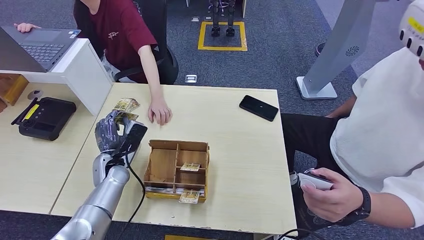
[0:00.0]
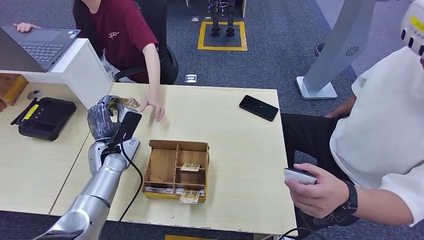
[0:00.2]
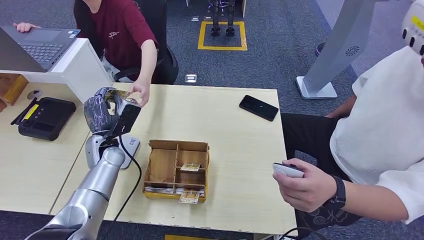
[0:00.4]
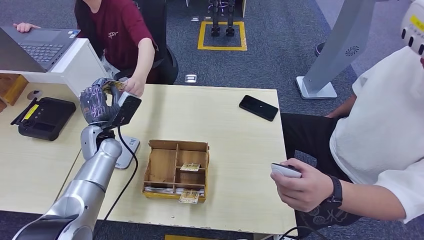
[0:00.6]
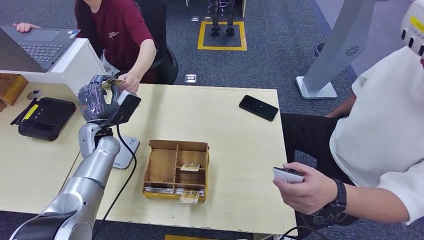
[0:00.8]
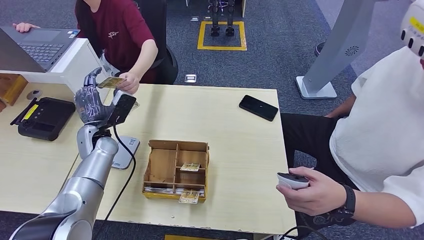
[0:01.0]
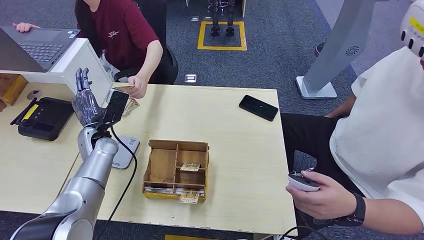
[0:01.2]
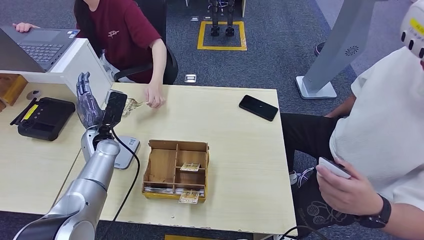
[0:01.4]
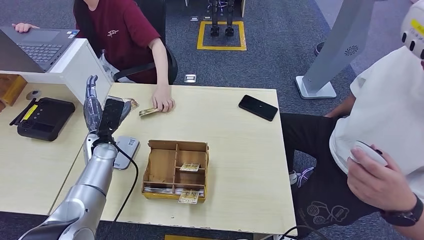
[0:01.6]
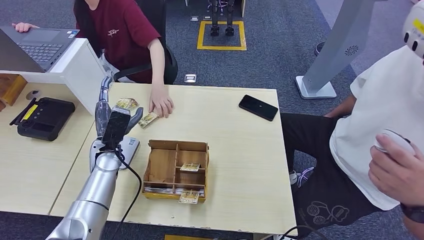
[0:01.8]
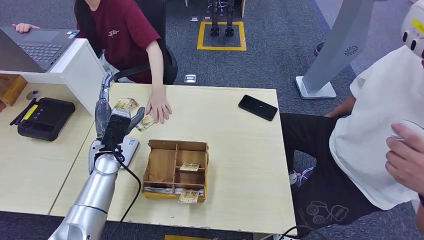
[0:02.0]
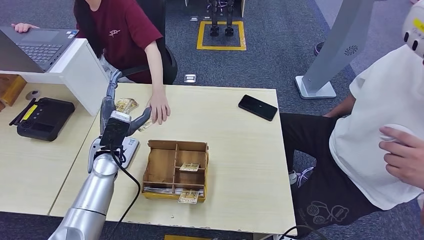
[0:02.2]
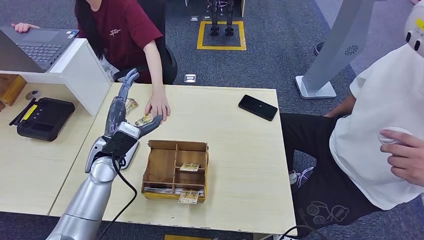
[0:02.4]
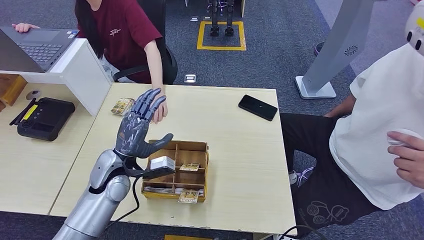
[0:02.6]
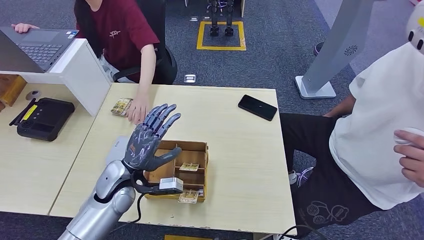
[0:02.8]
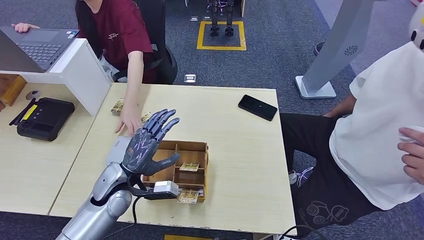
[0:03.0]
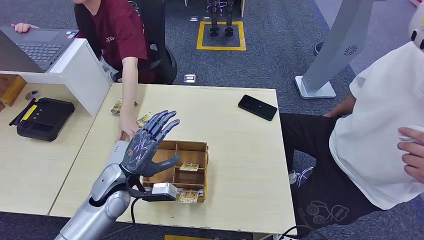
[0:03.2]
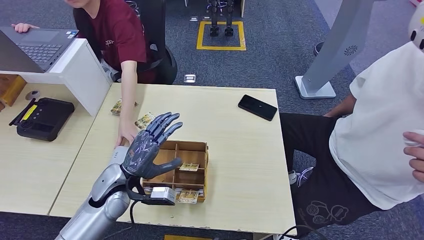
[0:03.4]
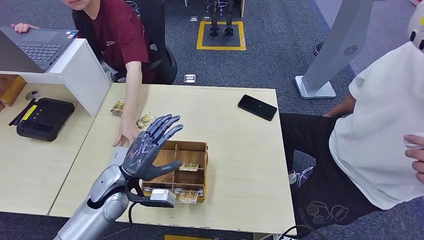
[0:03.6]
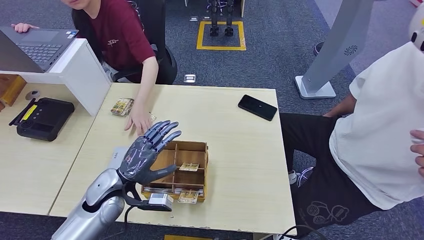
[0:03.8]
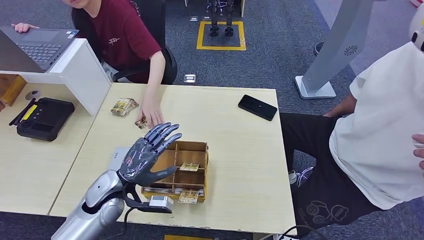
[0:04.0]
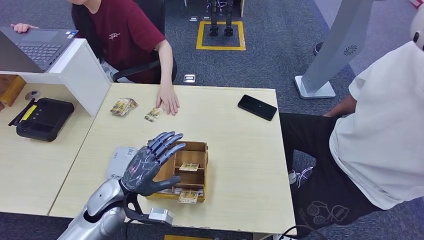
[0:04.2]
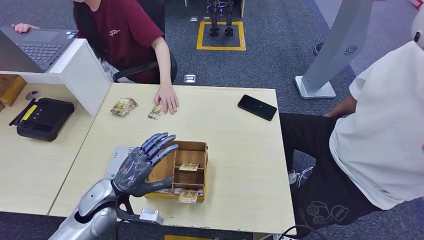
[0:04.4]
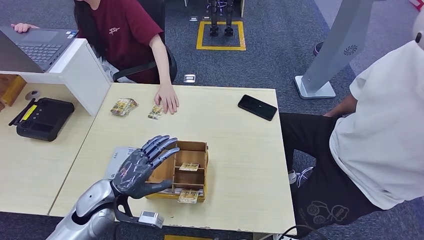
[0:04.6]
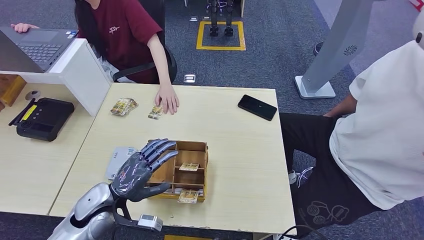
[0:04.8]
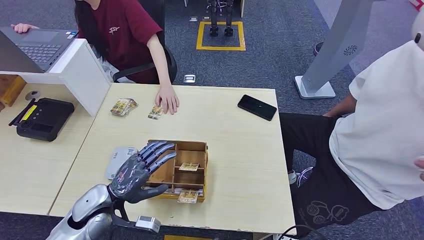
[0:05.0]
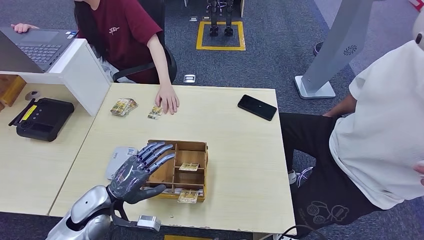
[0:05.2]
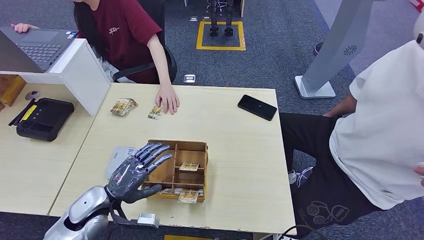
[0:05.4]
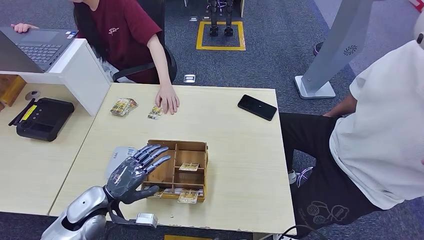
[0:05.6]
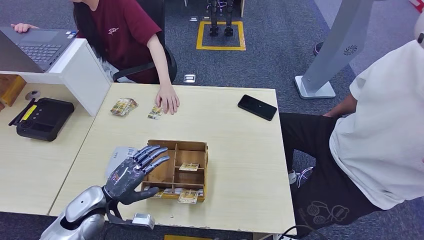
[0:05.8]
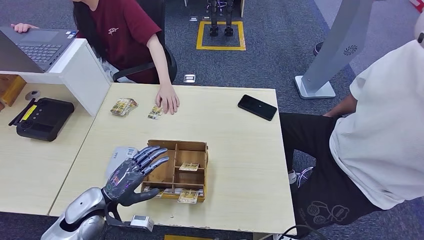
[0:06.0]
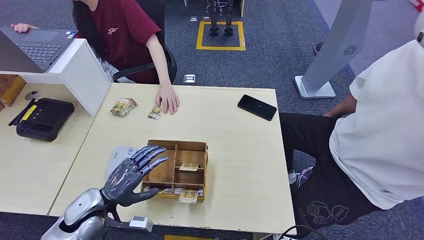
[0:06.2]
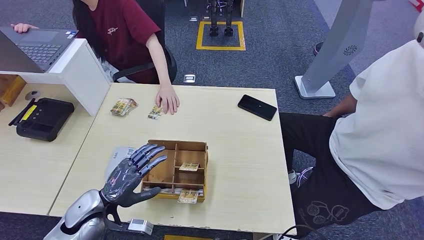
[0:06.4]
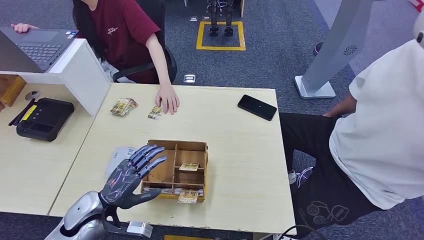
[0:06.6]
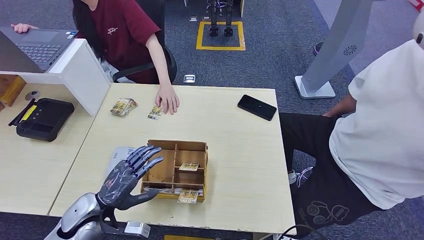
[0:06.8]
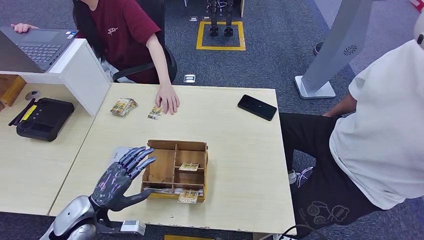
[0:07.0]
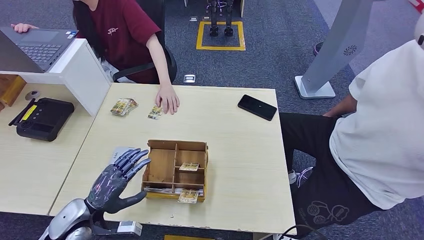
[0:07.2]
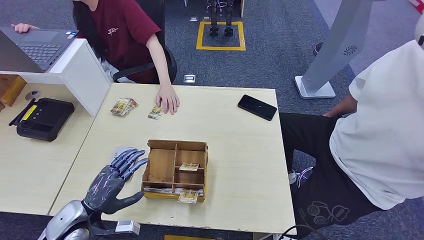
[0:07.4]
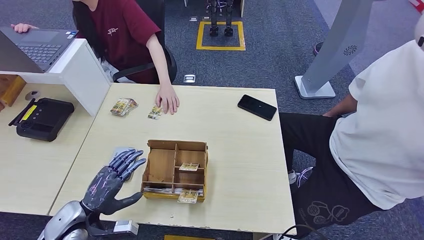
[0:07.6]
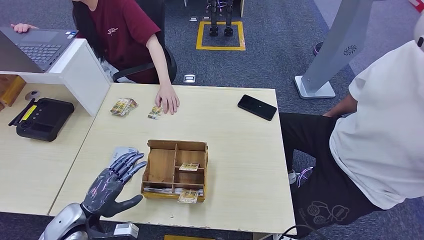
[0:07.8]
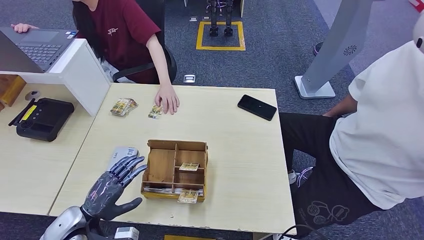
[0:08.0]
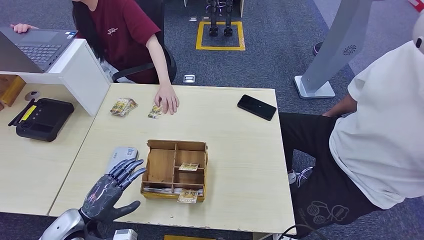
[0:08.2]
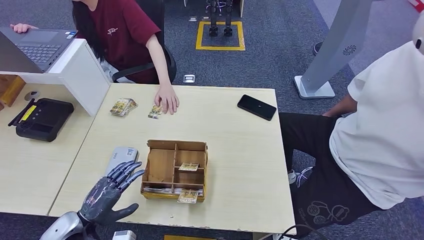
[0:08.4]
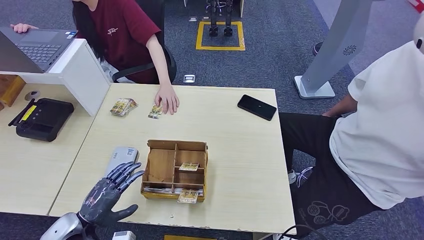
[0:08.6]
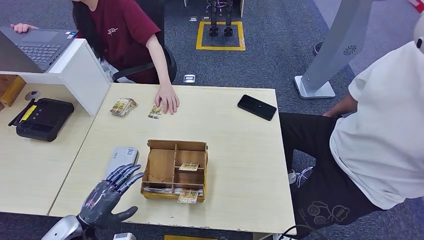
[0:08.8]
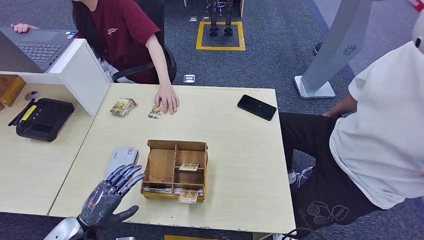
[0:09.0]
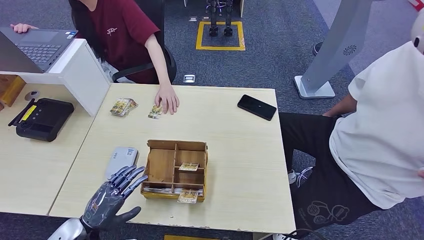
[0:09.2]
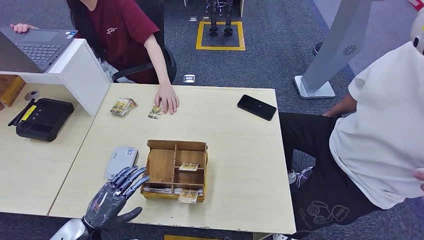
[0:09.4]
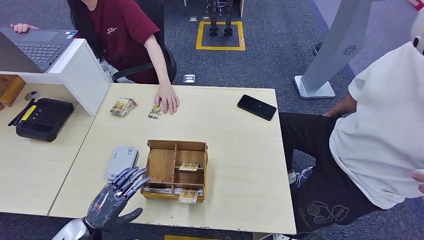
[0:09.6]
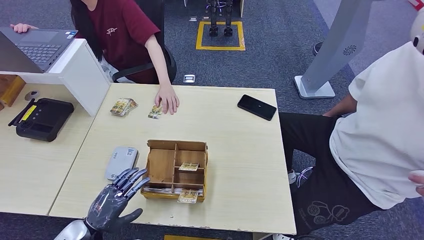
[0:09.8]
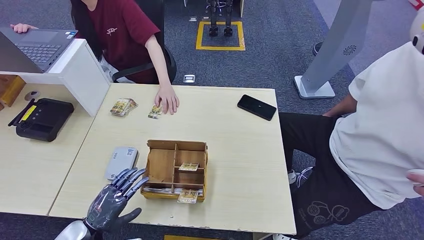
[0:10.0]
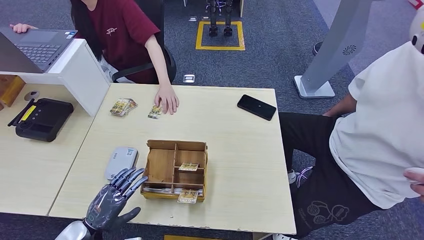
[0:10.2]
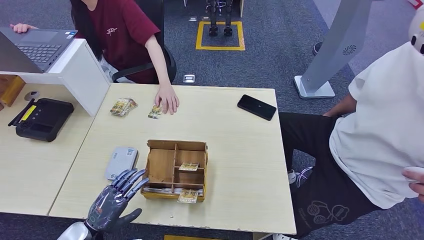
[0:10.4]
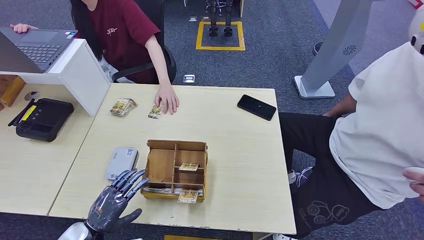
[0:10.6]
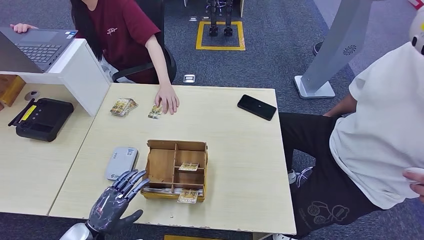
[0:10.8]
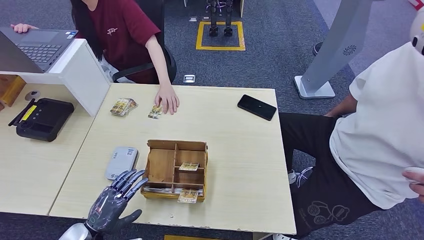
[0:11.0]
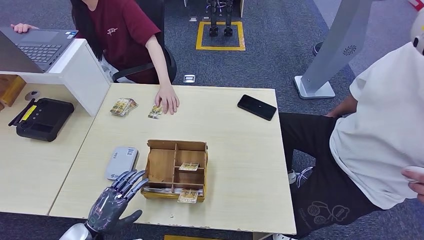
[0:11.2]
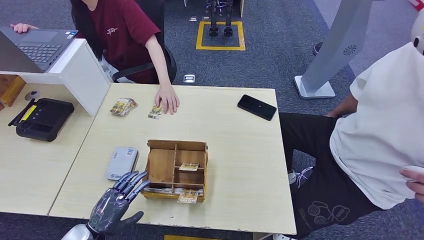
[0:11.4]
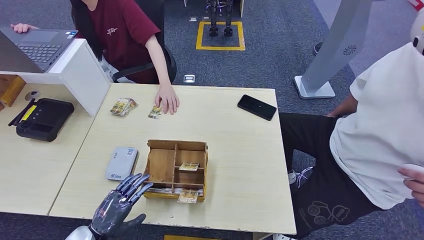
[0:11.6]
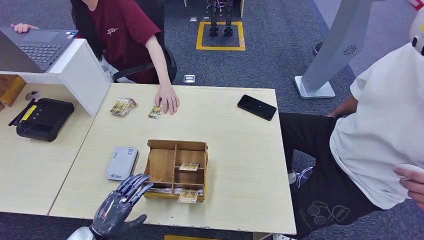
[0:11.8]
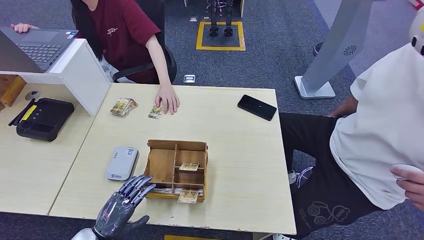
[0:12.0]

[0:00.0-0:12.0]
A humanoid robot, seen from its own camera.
0:00.0 to 0:01.6: The left hand shifts by approximately 5 cm.
0:01.6 to 0:03.0: The left hand moves backward and to the right, roughly 15 cm.
0:03.0 to 0:04.4: The hands move only a little.
0:04.4 to 0:06.0: The left hand ends up some 5 cm from where it was.
0:06.0 to 0:07.6: The hands make only small movements.
0:07.6 to 0:09.0: The hands move only a little.
0:10.4 to 0:12.0: The hands make only small movements.

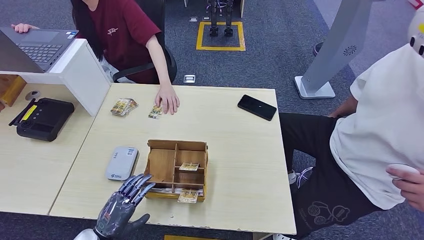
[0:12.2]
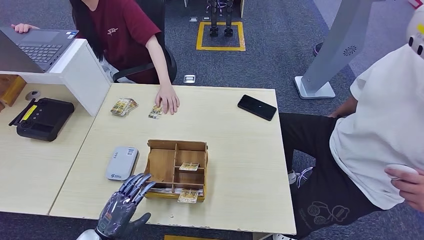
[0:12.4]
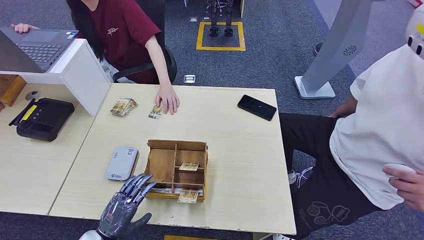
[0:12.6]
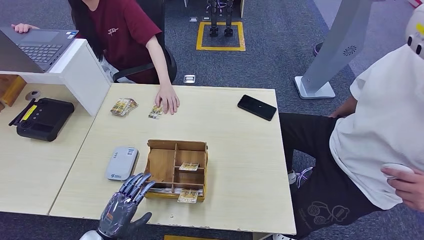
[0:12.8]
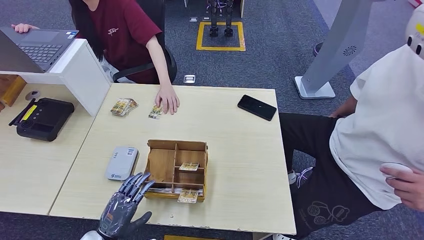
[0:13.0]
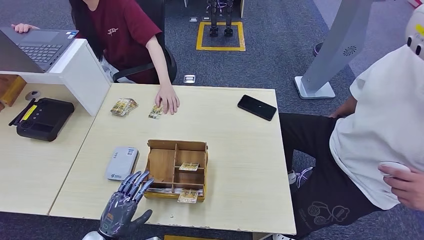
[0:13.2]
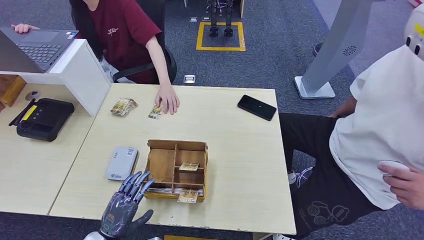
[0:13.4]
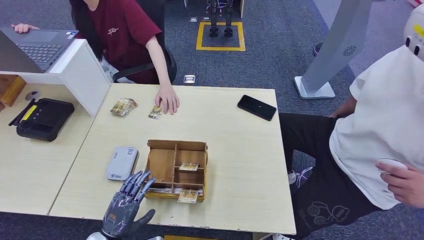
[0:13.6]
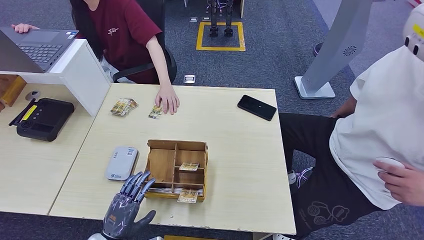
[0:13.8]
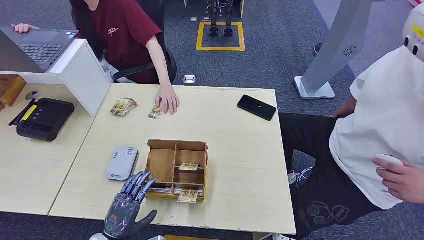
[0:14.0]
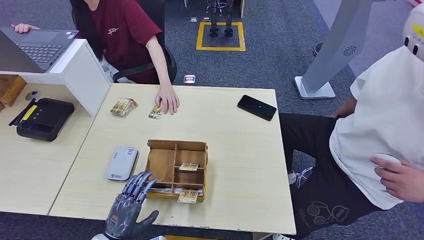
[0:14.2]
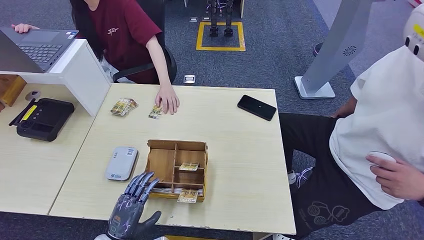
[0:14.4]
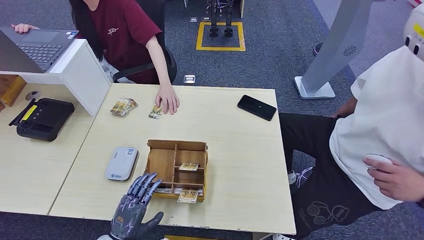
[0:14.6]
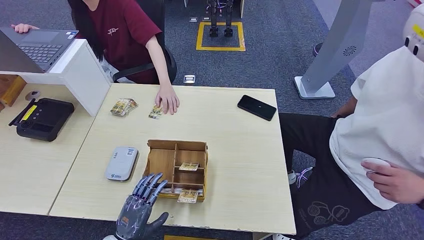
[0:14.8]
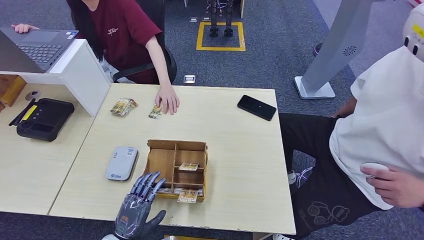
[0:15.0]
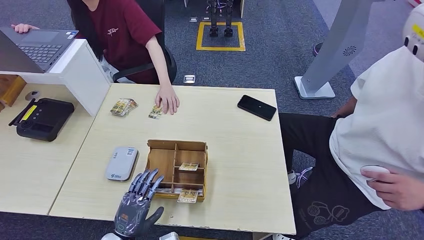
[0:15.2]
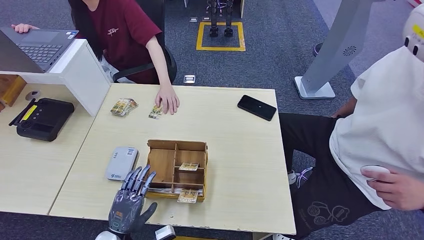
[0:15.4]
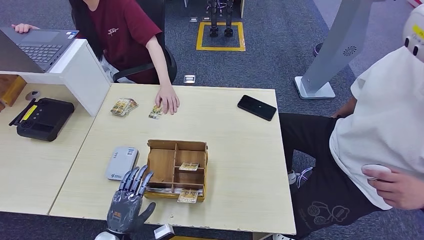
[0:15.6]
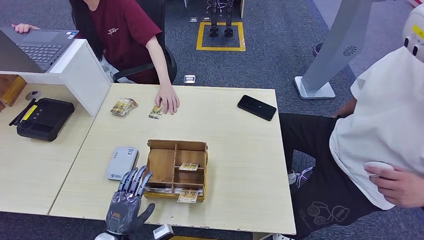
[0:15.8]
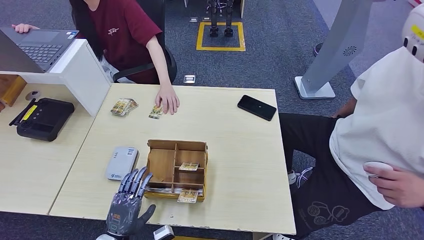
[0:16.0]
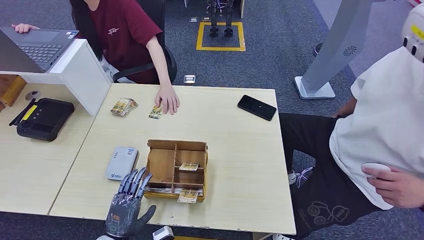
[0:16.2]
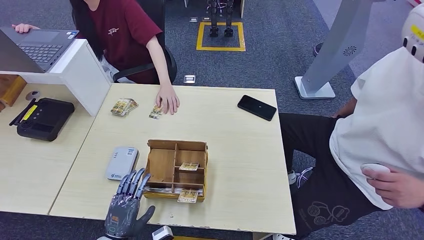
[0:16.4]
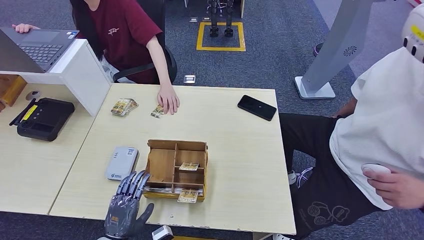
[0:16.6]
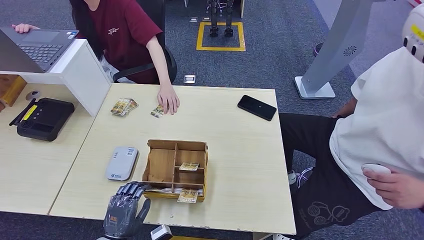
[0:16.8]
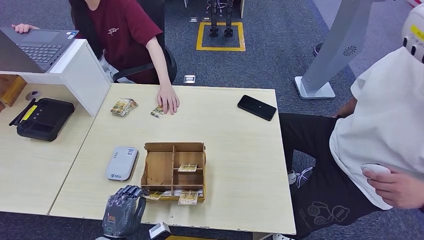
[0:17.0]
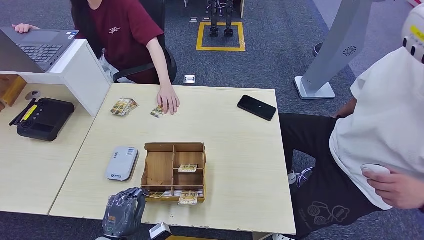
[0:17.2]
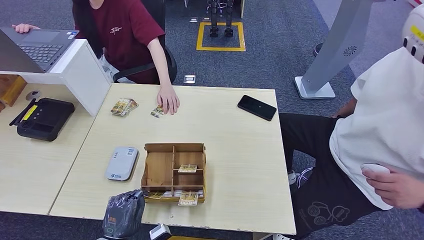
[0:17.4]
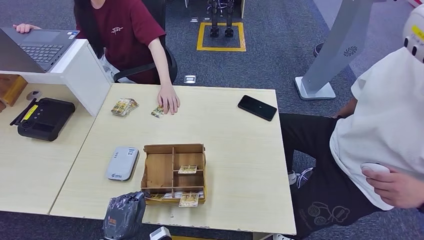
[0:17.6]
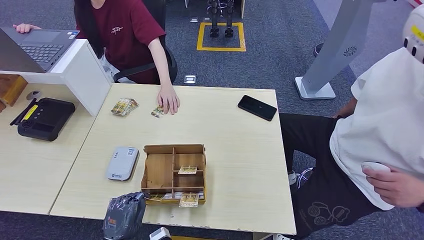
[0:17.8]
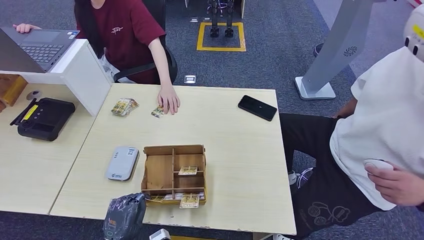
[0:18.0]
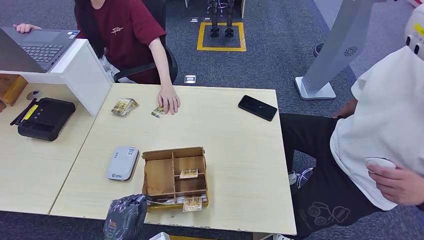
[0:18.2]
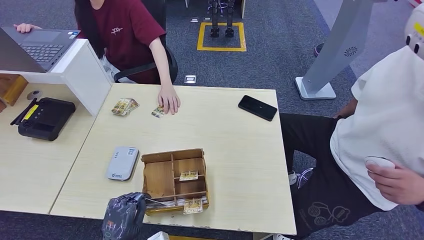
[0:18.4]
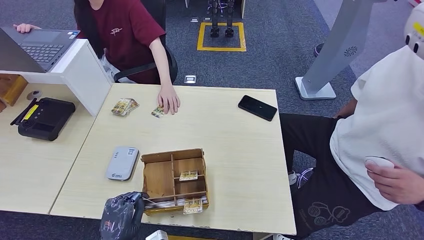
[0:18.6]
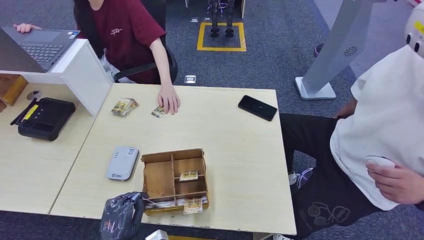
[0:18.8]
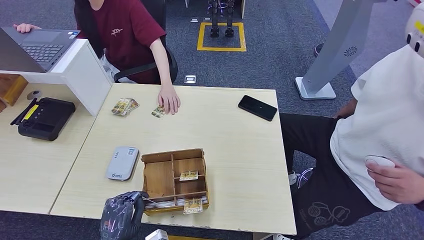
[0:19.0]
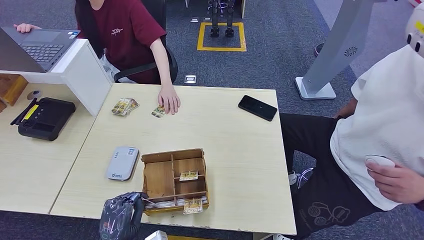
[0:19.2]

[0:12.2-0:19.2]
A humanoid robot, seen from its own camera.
0:16.4 to 0:17.8: The hands make only small movements.
0:17.8 to 0:19.2: The hands stay close to where they were, moving slightly.
